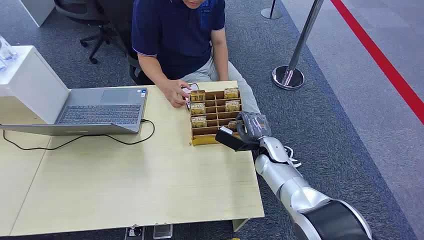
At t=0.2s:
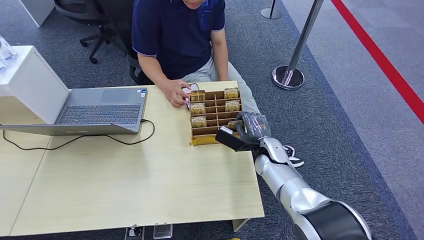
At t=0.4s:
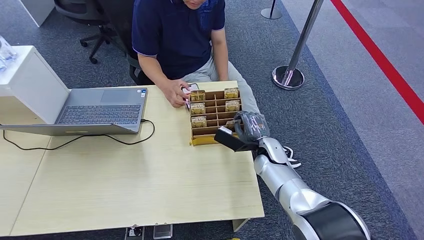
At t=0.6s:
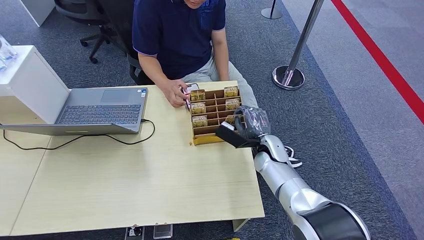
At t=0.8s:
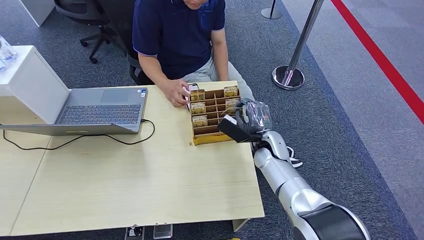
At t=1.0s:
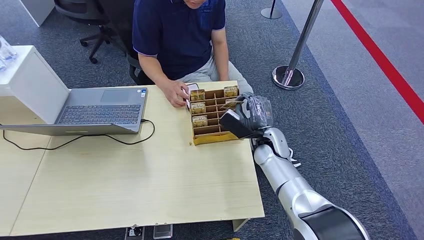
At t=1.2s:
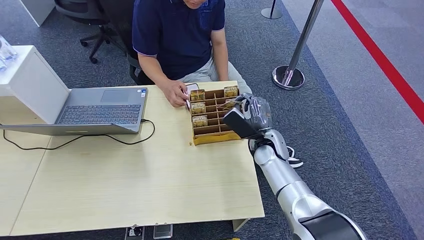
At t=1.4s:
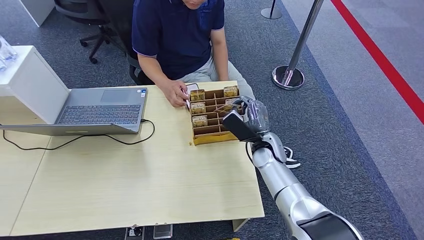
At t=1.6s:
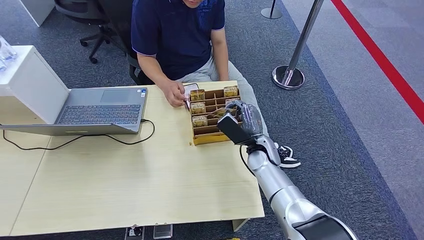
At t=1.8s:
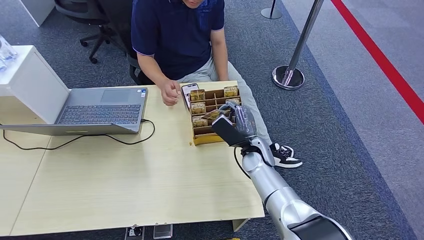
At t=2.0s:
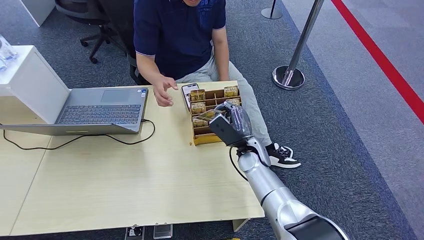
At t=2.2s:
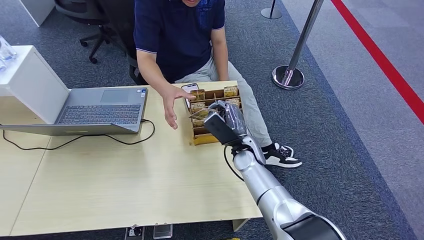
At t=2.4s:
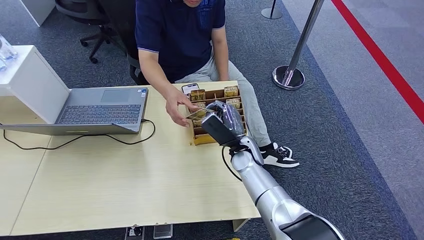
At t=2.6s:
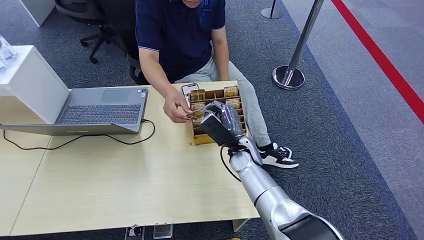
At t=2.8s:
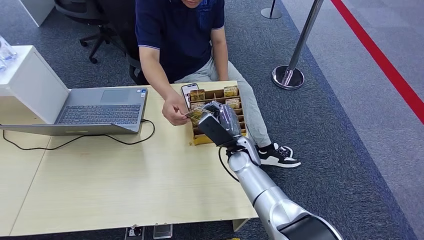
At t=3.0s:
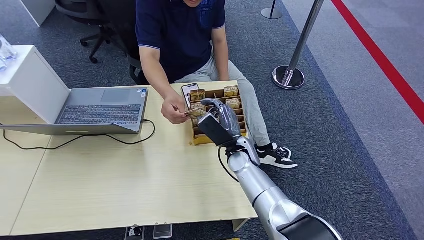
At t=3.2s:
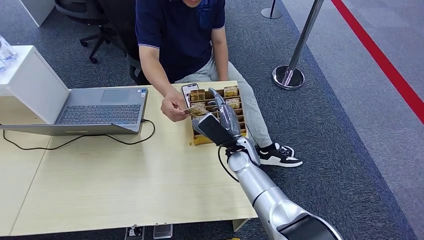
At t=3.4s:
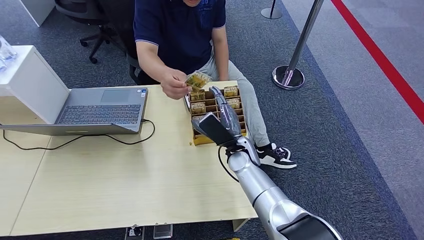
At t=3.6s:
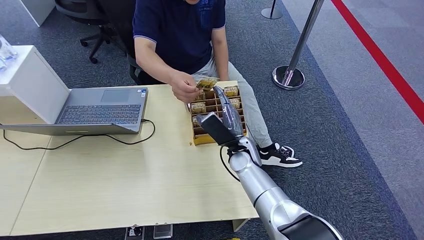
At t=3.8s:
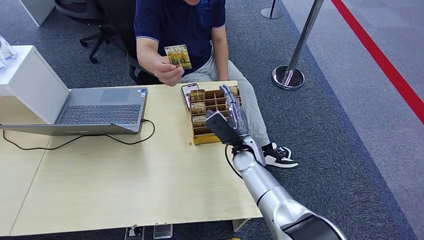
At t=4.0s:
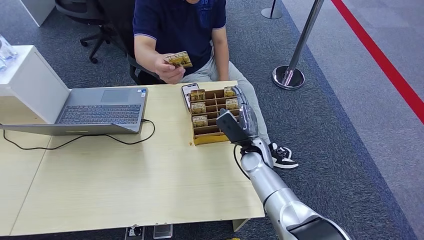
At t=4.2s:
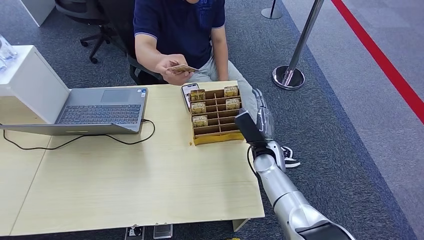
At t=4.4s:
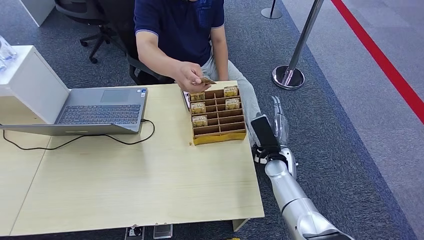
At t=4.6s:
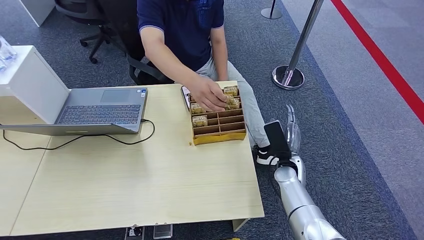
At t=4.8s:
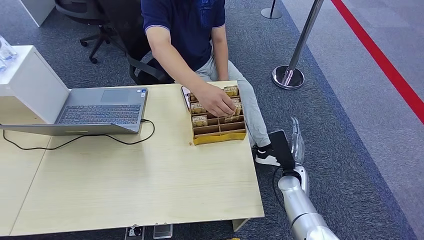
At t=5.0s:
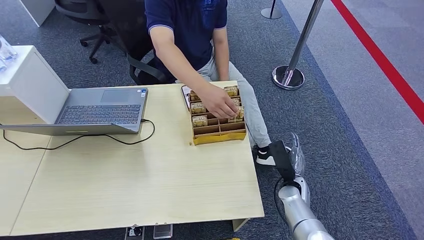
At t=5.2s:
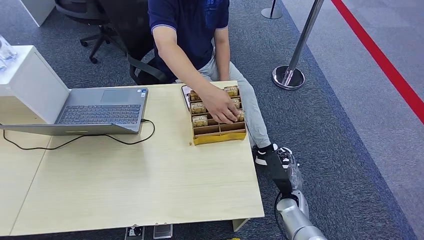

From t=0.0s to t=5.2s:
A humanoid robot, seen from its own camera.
Step, from t=0.0s to t=1.8s: Pick up the room card from the card holder.
Step, from t=2.0s to t=5.0s: Hand the room card to the target.
From t=1.8s to t=3.4s: The hands move only a little.
From t=3.4s to t=5.2s: The right hand shifts approximately 25 cm to the right, downward and backward.
